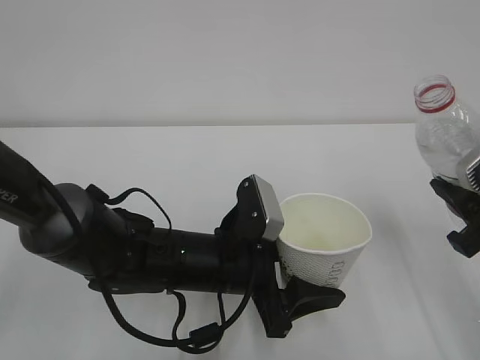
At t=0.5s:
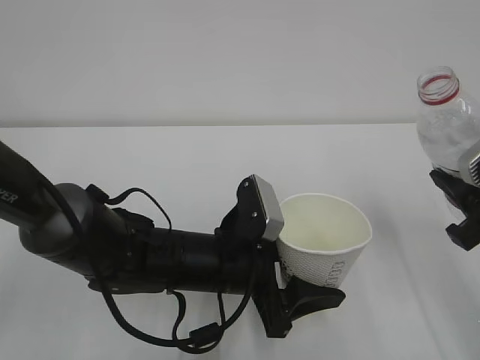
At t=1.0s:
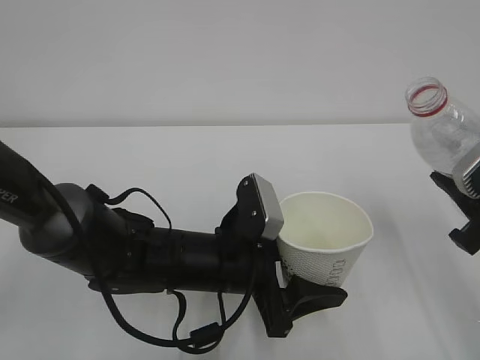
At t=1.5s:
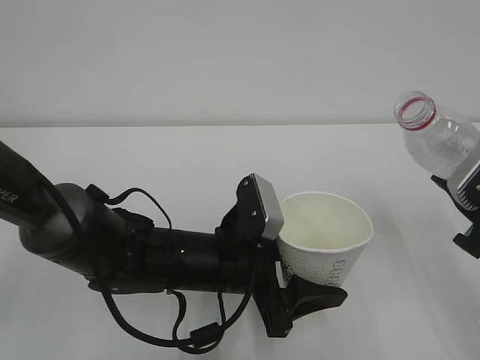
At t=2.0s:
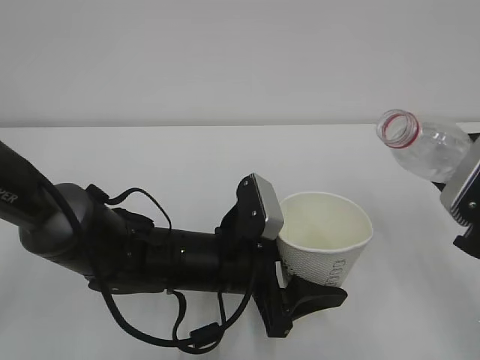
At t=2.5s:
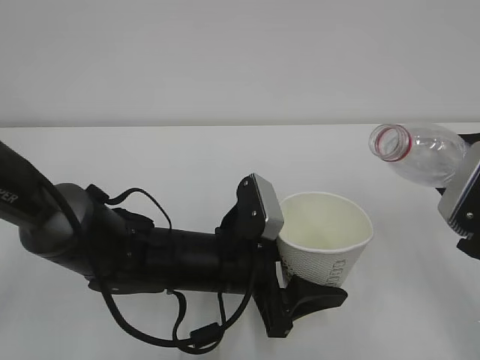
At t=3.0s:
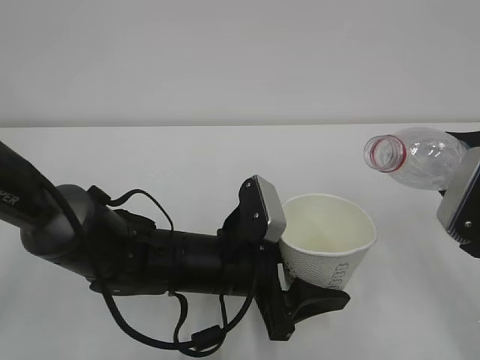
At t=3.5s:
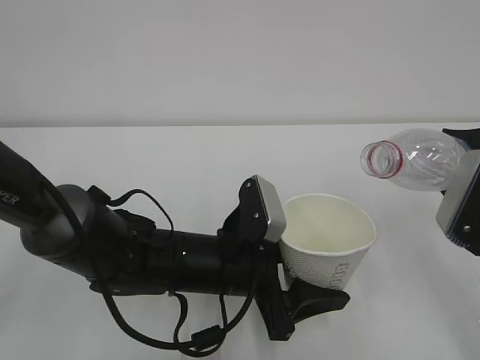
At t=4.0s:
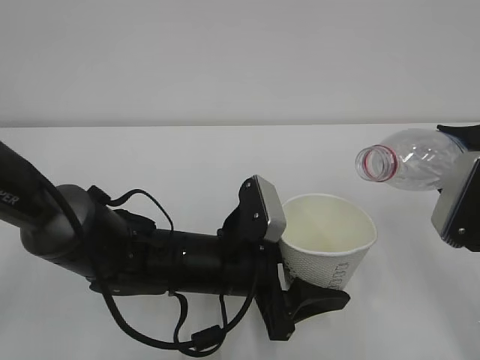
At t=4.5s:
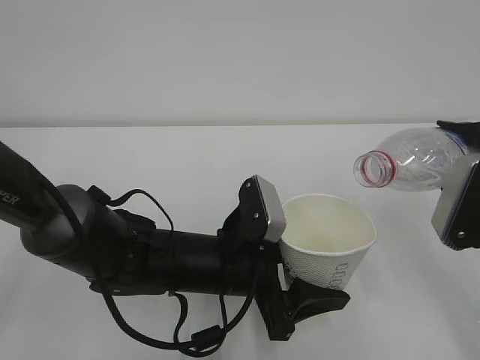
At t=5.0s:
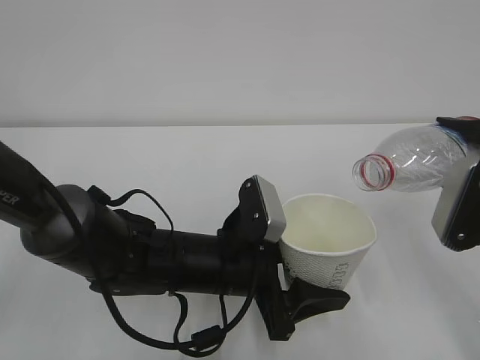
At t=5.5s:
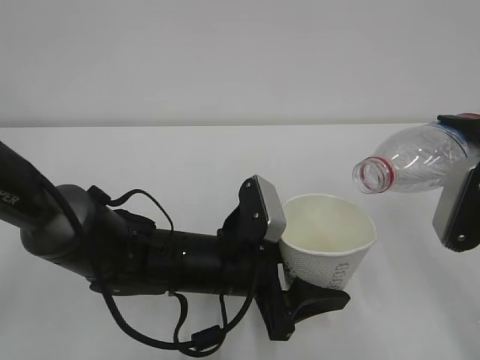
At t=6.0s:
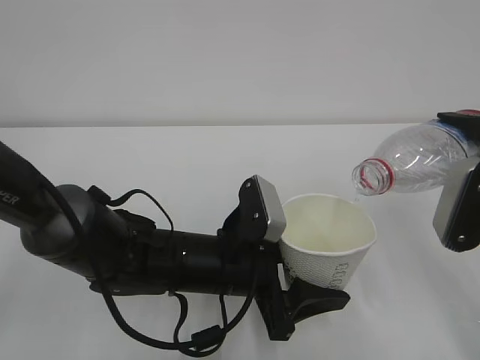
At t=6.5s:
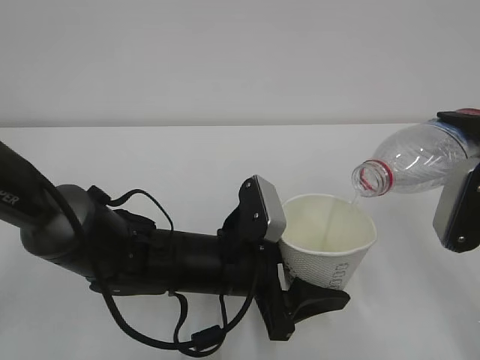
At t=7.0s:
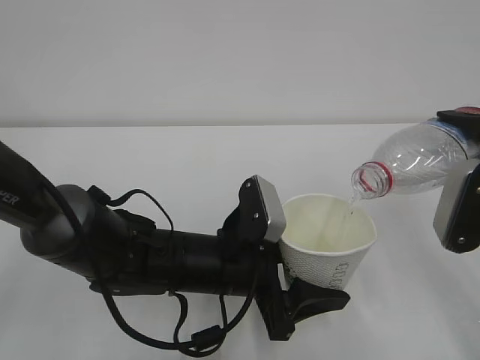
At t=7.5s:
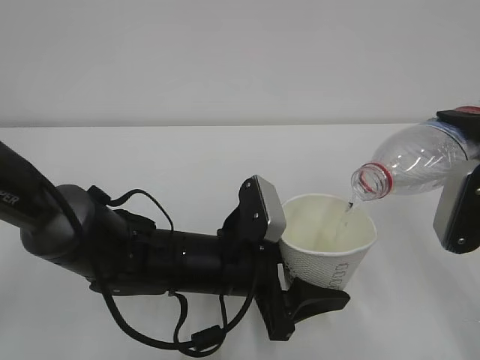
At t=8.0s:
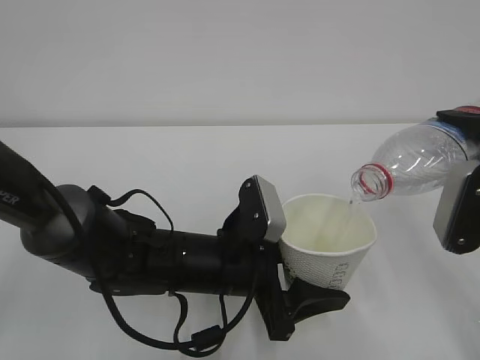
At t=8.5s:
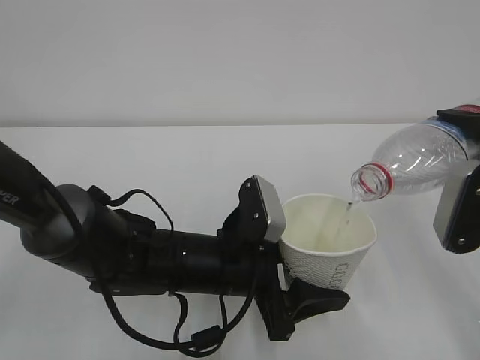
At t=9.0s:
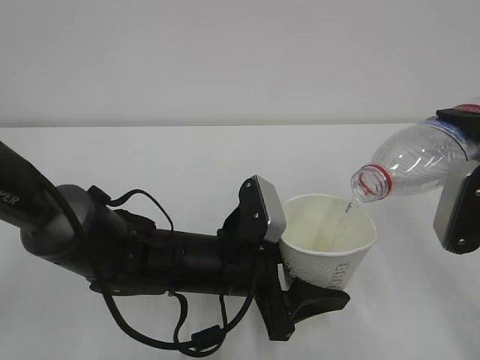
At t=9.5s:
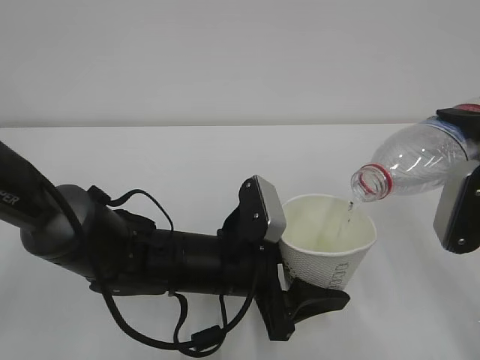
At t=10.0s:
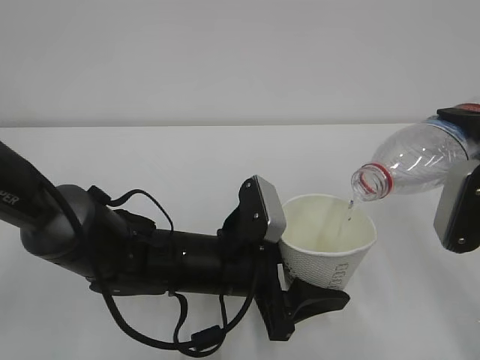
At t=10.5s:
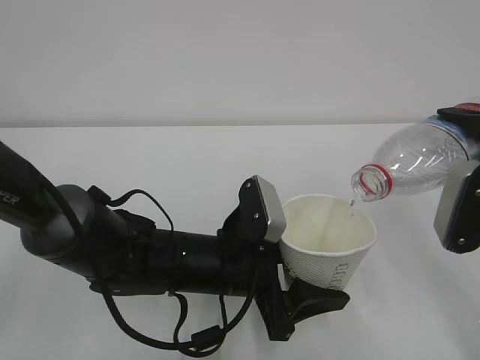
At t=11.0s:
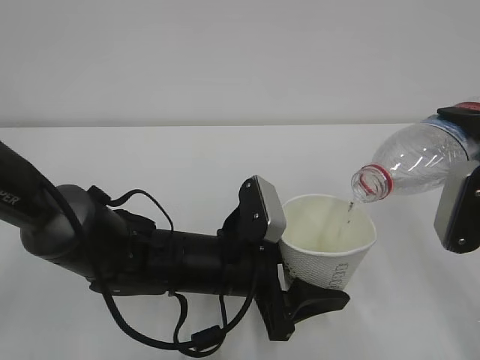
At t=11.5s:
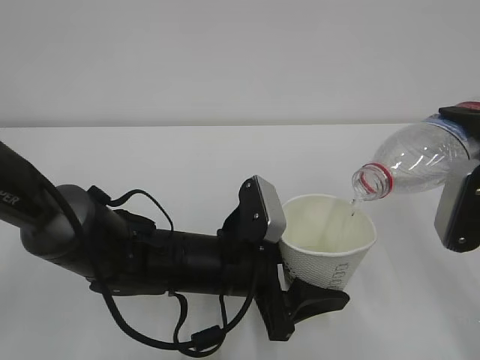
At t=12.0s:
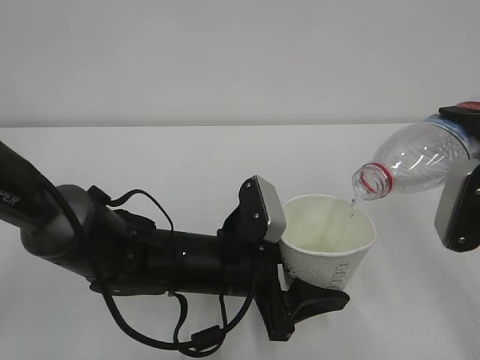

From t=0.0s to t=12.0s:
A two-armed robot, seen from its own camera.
From t=2.0s to t=4.0s: The grippers move only a little.
From t=4.0s to t=6.0s: There are only small adjustments of the grippers.
From t=6.0s to t=10.0s: Both grippers stay put.
From t=10.0s to t=12.0s: Neither gripper changes place.

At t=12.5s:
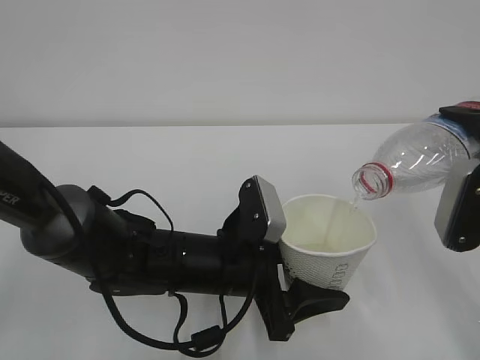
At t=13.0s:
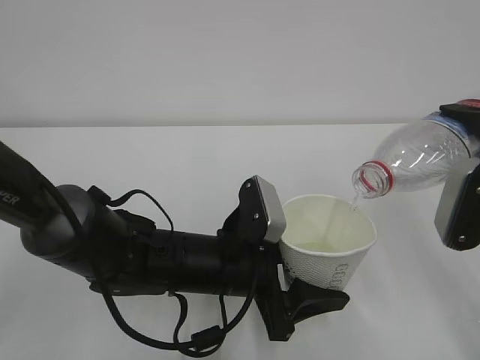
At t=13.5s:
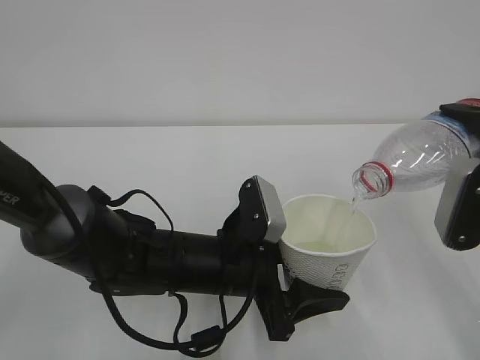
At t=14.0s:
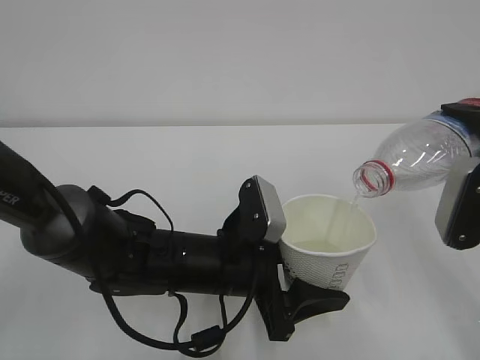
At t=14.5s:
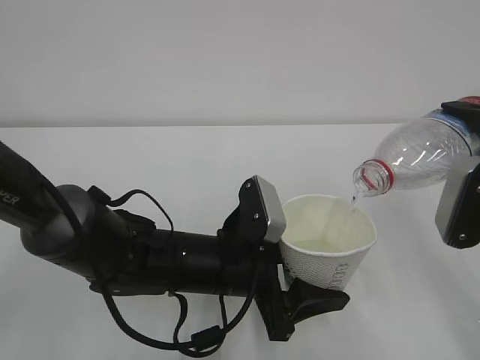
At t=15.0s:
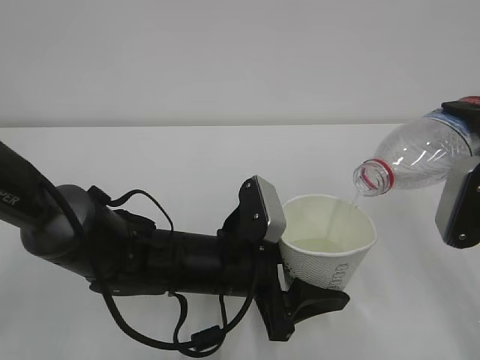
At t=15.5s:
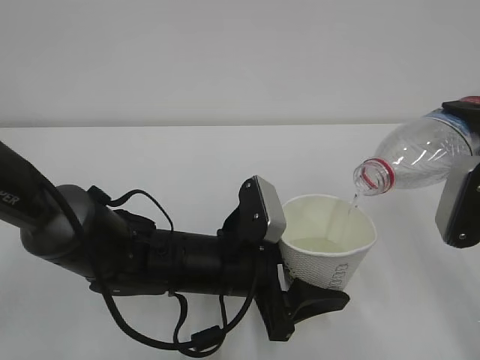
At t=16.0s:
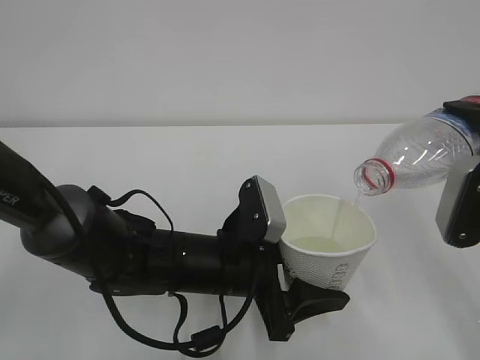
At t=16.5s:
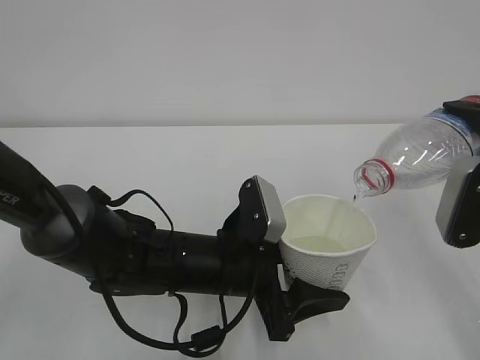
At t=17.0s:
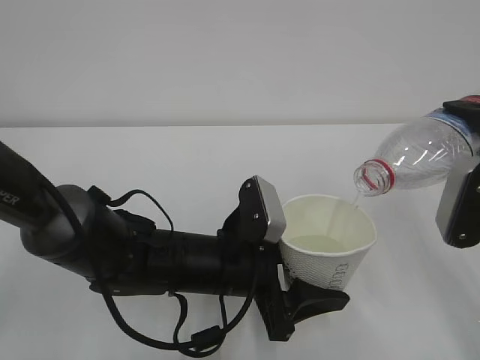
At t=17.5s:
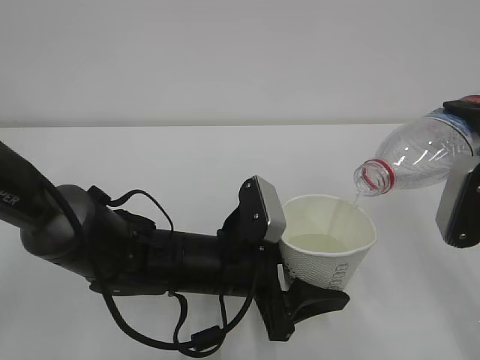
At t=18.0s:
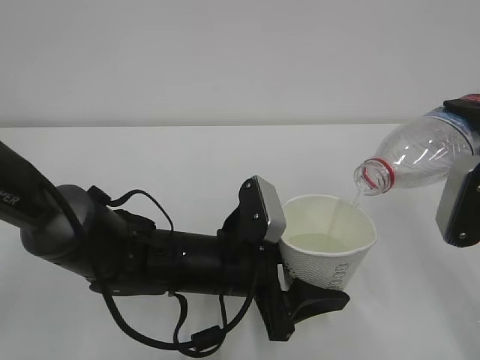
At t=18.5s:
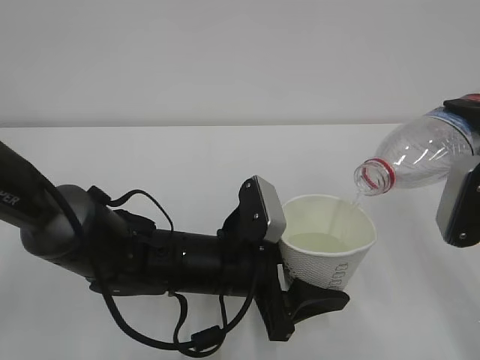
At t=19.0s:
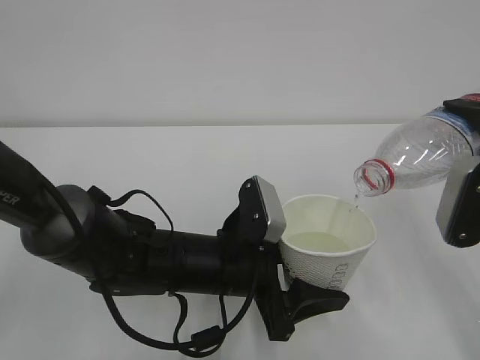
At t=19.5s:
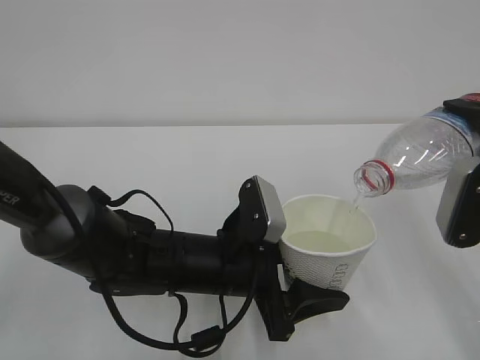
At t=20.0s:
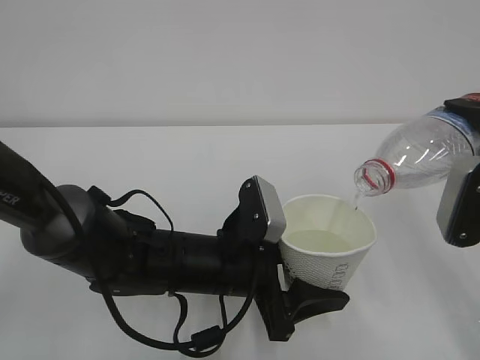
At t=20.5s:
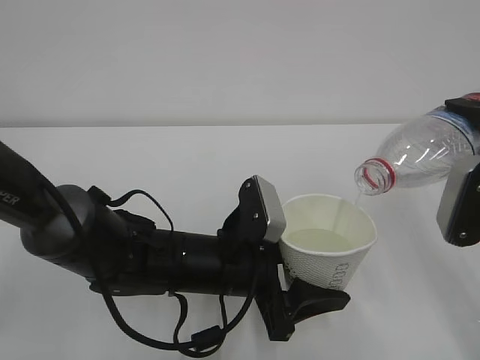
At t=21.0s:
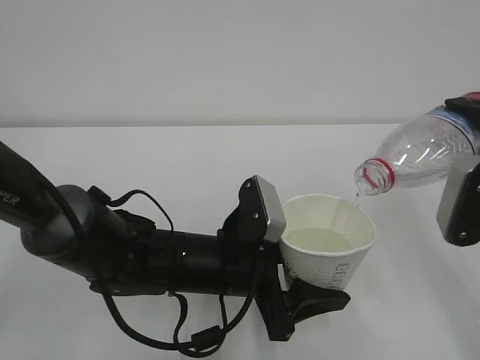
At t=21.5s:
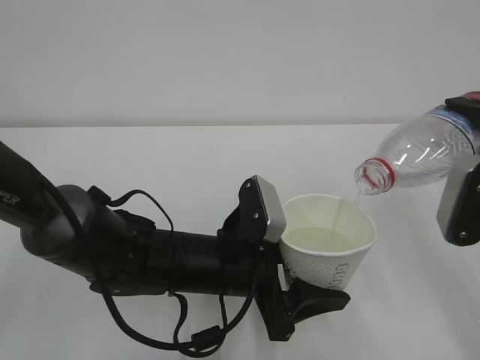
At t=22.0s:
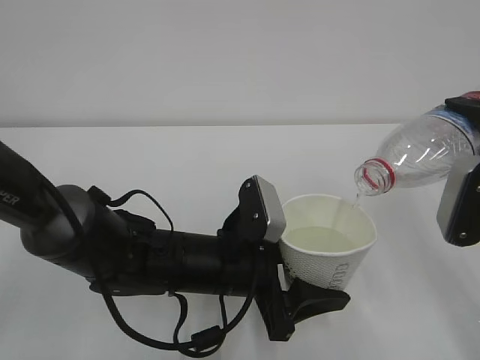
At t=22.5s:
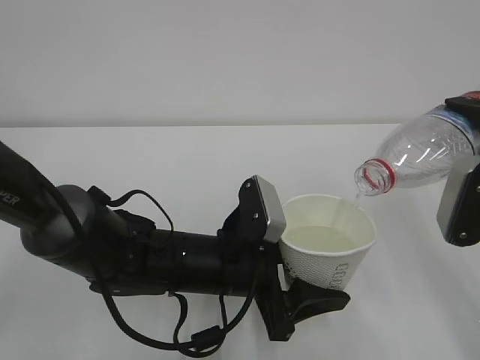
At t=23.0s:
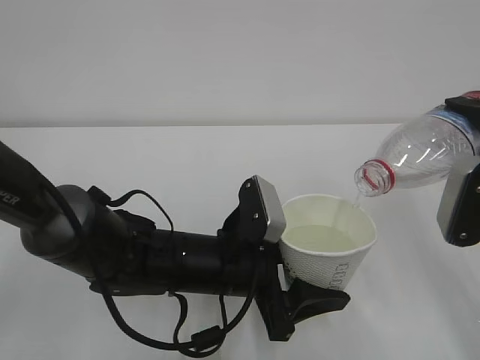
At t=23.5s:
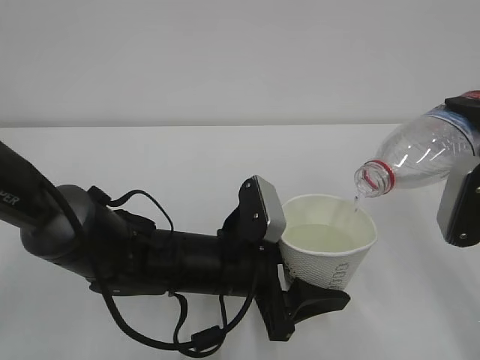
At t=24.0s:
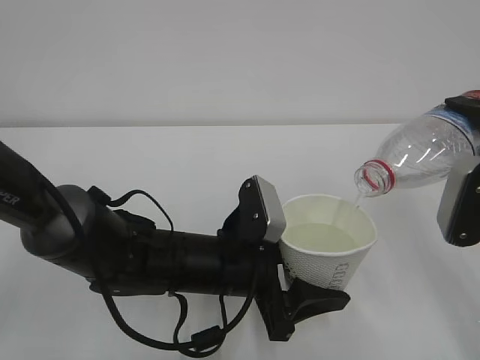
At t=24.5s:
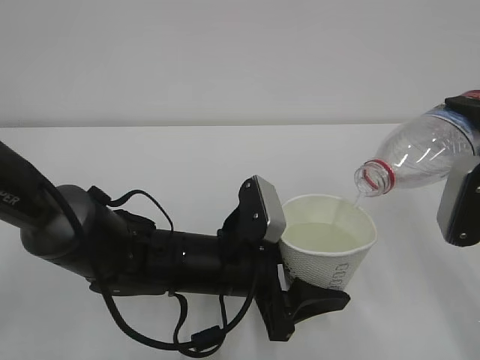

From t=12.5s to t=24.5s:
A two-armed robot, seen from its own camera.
From t=12.5s to t=24.5s: Both grippers stay put.

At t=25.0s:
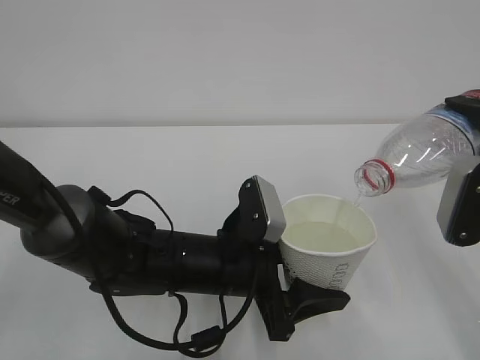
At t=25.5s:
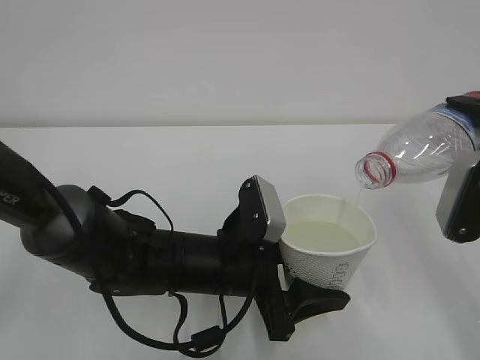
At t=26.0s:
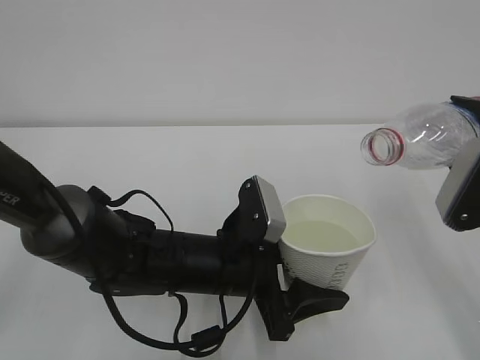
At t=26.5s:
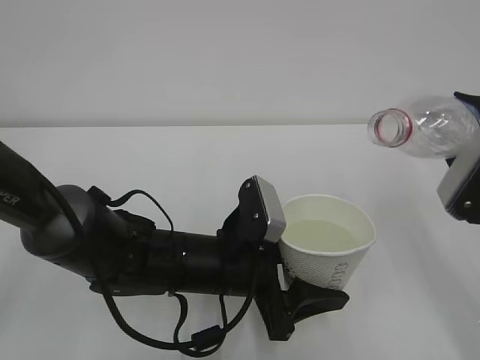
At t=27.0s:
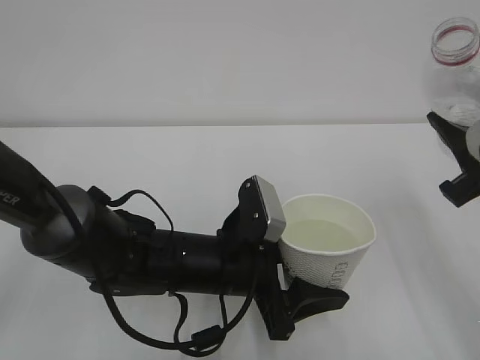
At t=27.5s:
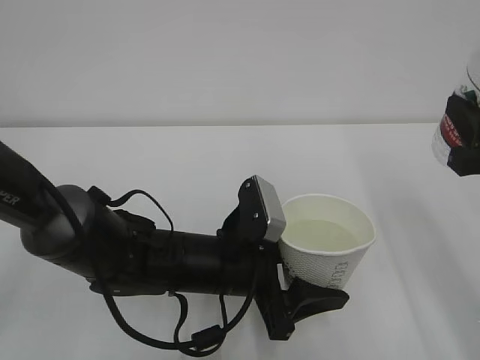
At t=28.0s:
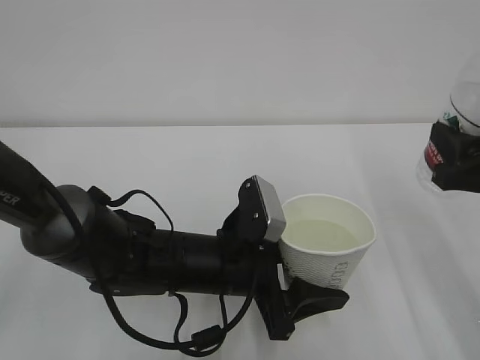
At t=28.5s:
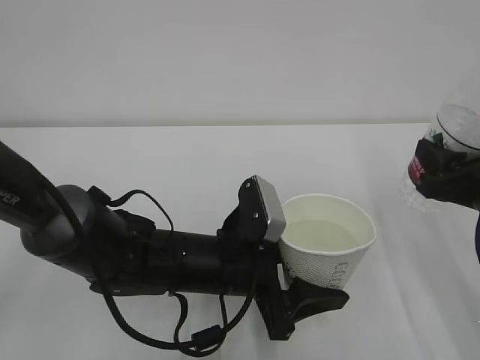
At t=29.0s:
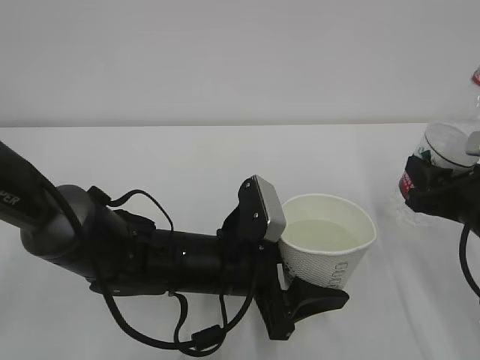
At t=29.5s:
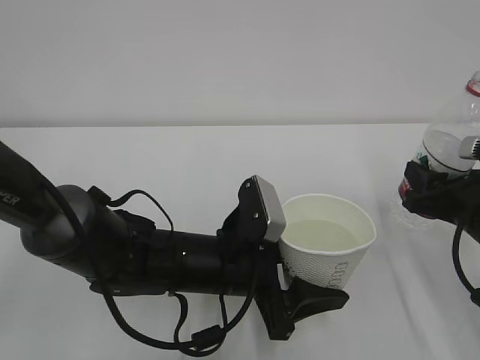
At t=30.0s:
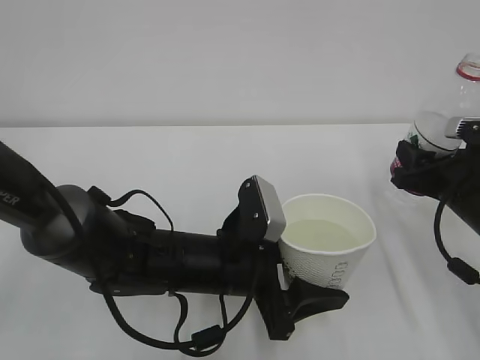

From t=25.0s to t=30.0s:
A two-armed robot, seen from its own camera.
From t=27.5s to t=30.0s: The right gripper moves downward and forward, approximately 10 cm.
